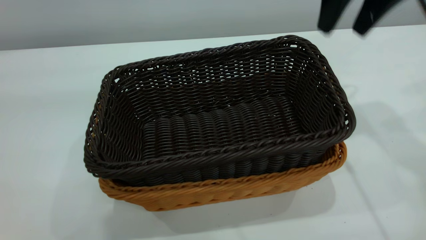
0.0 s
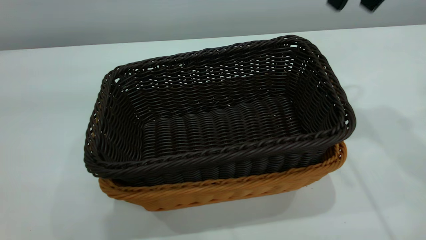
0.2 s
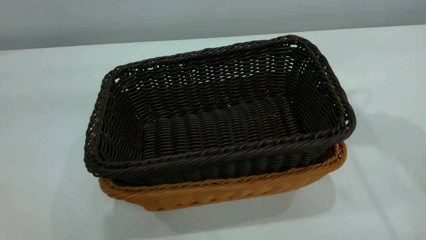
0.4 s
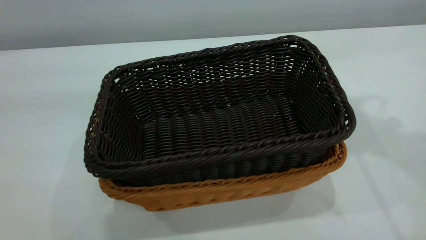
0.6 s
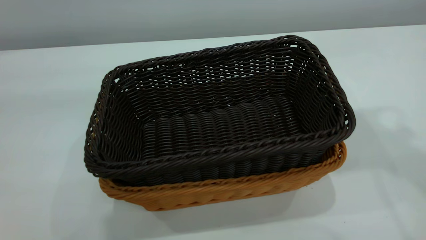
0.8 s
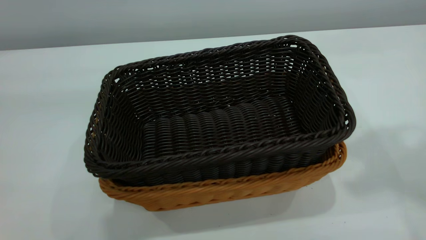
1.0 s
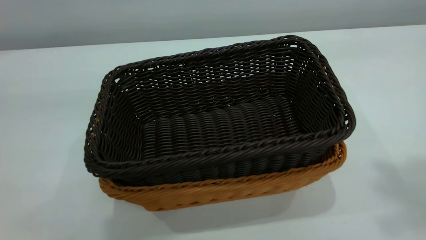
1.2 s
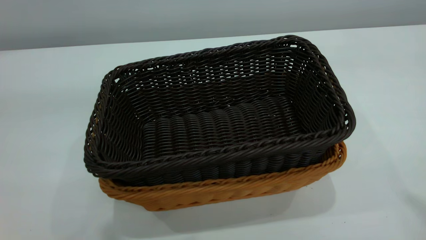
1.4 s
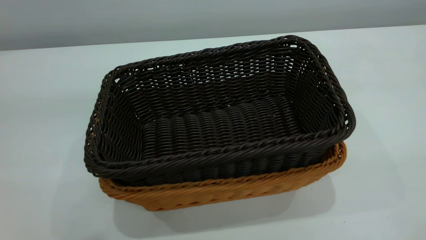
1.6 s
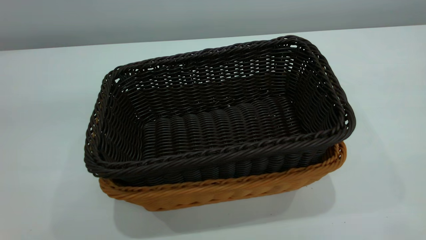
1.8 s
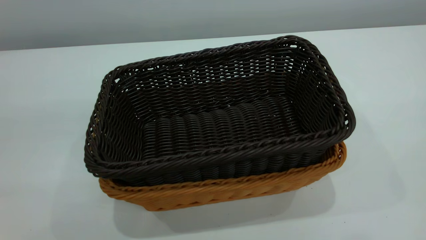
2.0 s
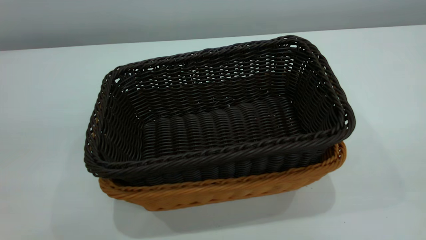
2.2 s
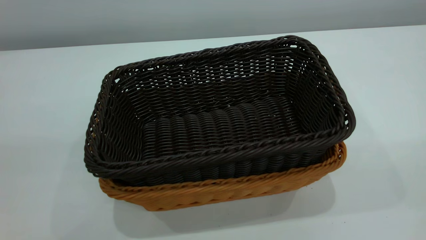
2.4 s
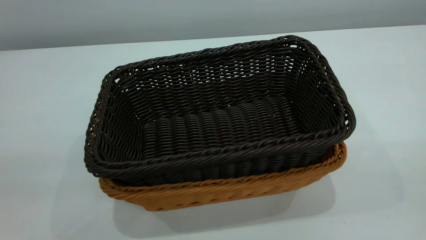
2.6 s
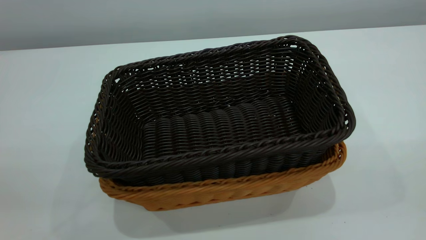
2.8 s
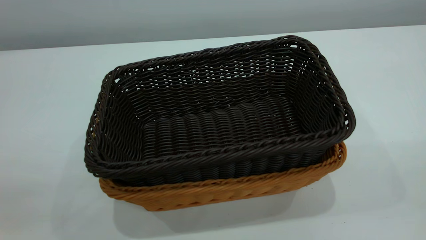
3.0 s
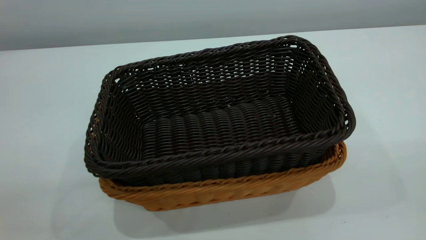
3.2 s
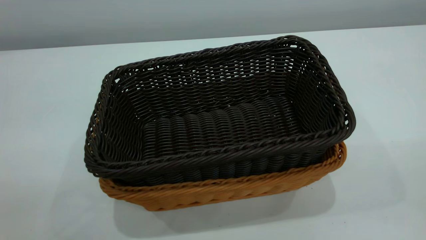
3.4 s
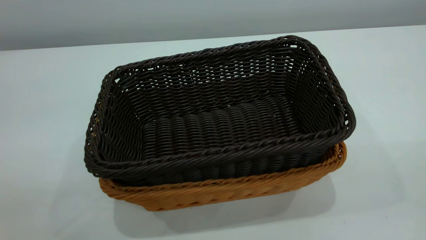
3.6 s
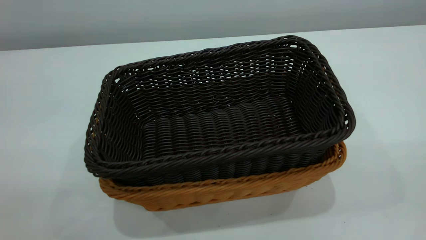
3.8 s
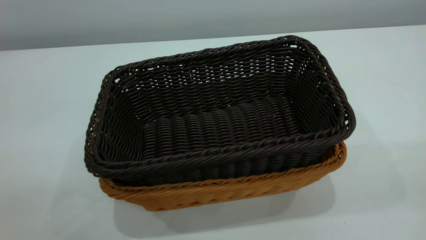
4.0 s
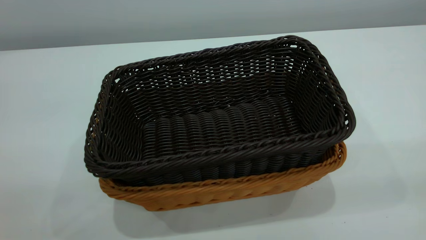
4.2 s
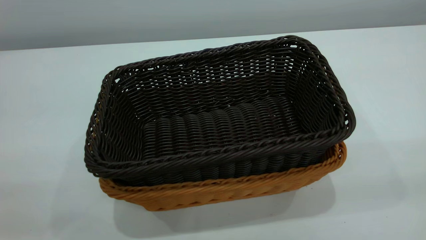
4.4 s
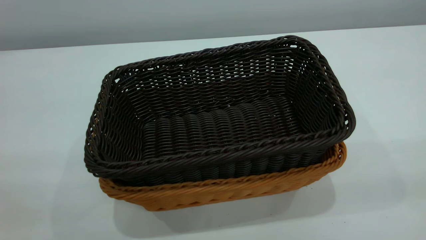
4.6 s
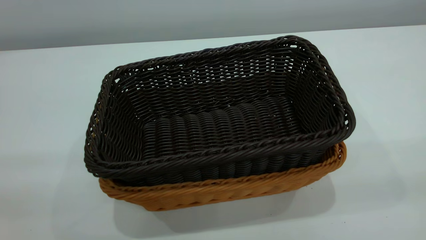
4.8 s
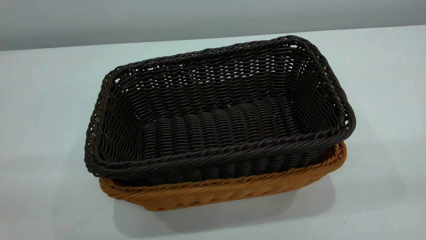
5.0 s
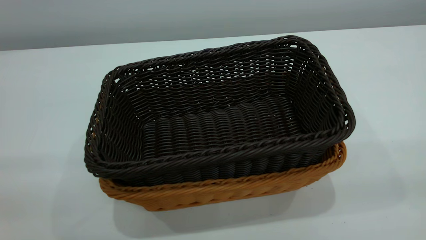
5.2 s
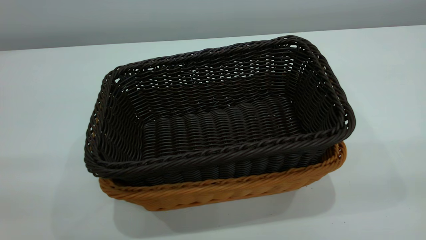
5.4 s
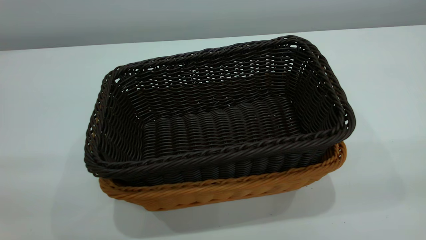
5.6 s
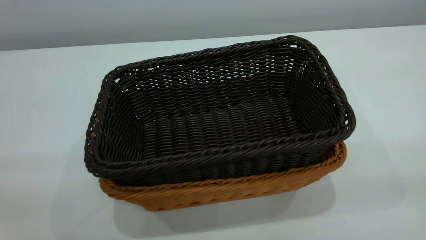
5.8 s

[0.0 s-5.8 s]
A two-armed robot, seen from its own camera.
Task of the whole recording: the left gripper grasp the brown basket and place it in the center of the table, the right gripper grasp the black basket and place it inside the brown one.
0.0 to 1.4 s: The right gripper shifts about 35 cm upward and backward, and closes its fingers.
